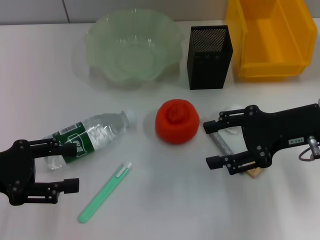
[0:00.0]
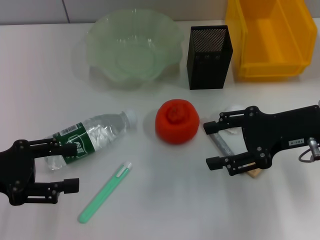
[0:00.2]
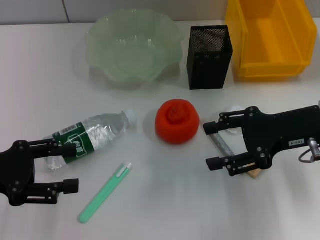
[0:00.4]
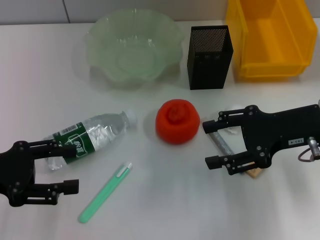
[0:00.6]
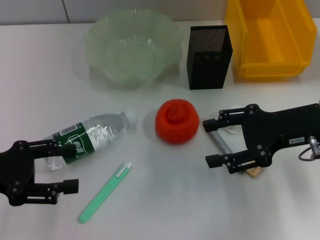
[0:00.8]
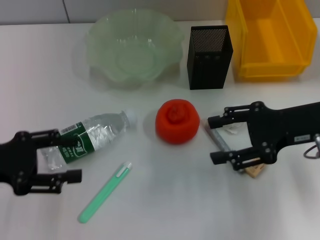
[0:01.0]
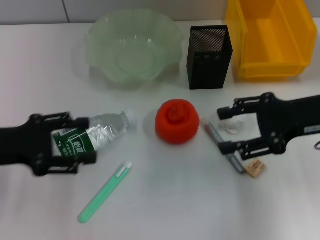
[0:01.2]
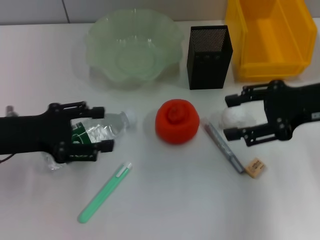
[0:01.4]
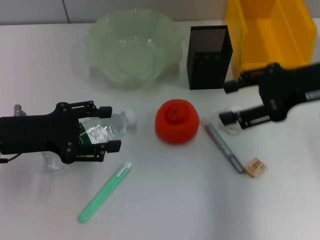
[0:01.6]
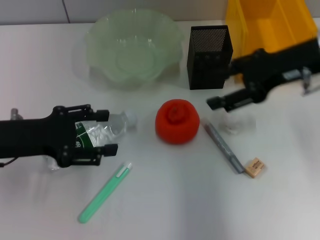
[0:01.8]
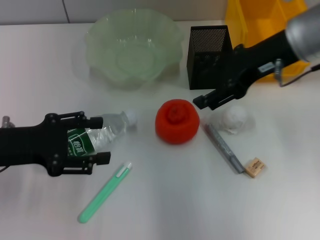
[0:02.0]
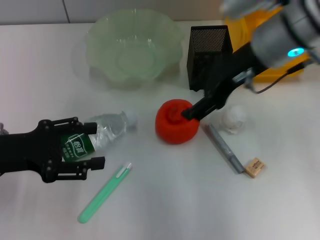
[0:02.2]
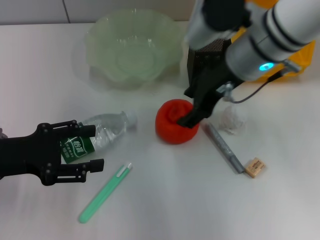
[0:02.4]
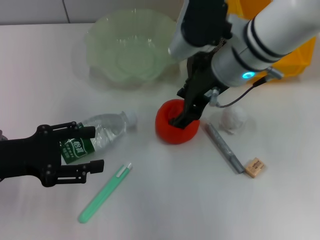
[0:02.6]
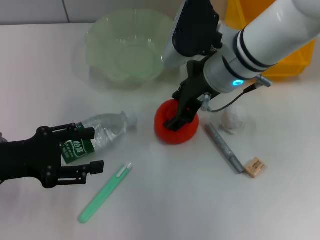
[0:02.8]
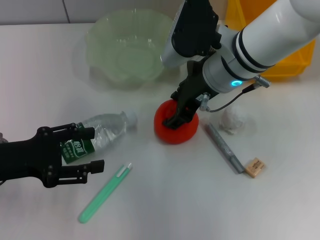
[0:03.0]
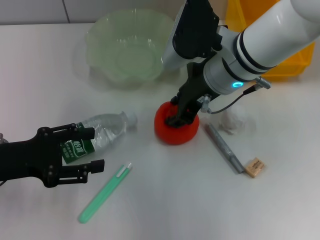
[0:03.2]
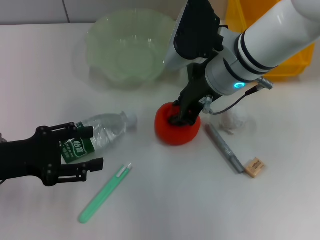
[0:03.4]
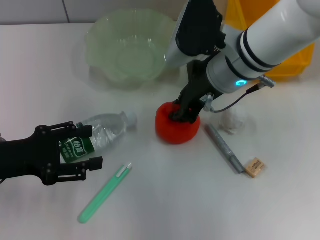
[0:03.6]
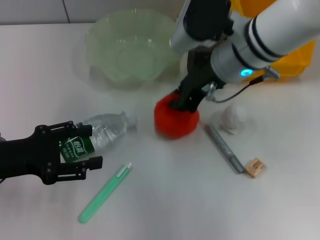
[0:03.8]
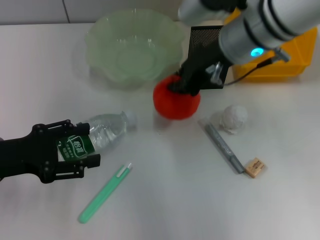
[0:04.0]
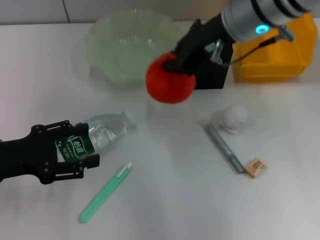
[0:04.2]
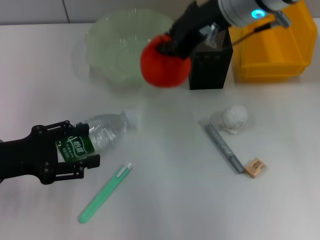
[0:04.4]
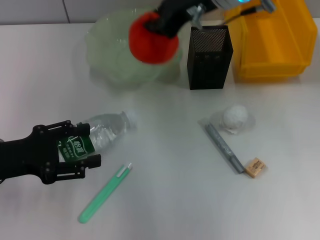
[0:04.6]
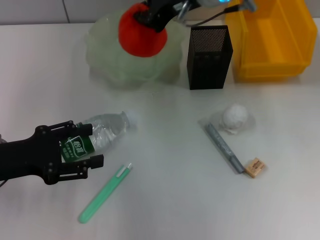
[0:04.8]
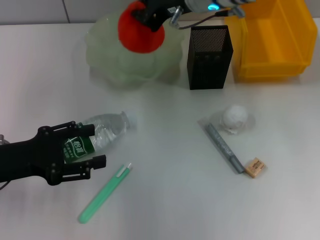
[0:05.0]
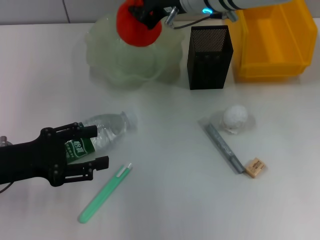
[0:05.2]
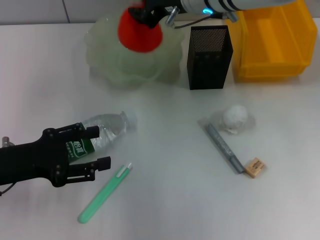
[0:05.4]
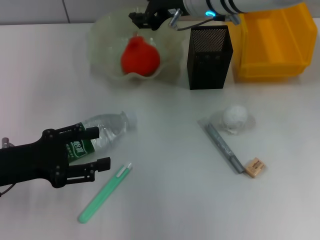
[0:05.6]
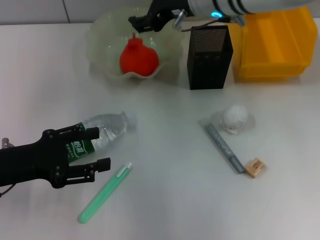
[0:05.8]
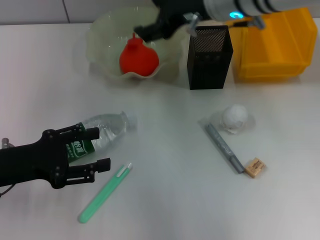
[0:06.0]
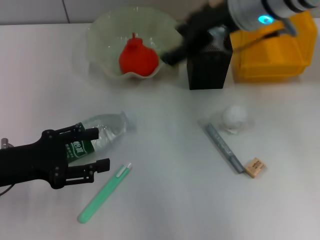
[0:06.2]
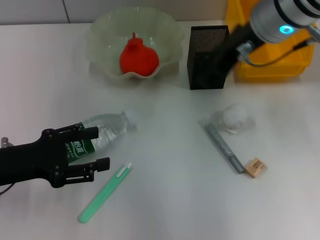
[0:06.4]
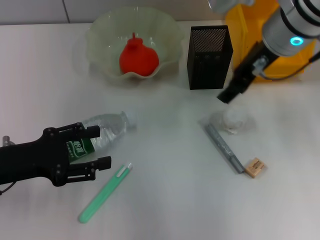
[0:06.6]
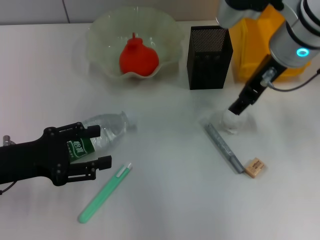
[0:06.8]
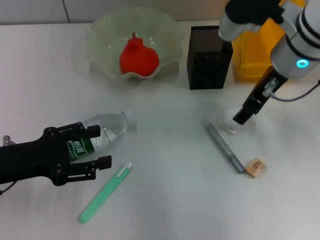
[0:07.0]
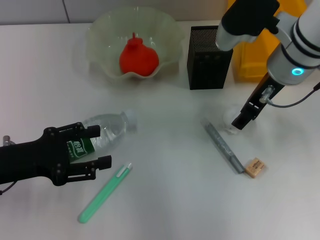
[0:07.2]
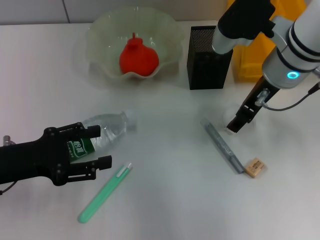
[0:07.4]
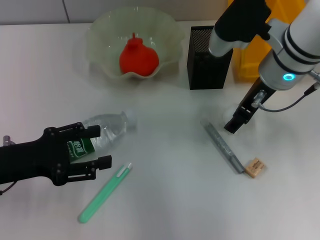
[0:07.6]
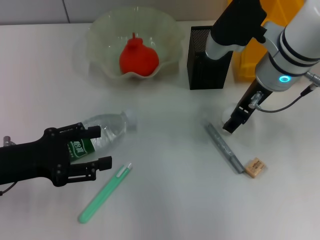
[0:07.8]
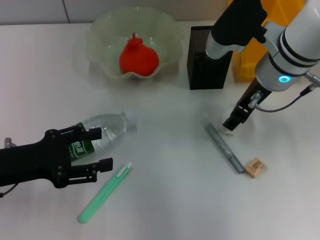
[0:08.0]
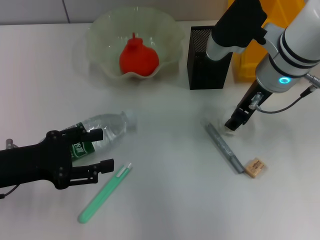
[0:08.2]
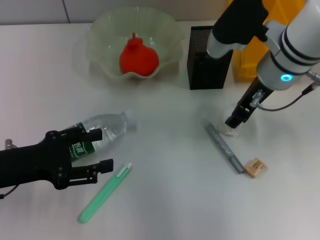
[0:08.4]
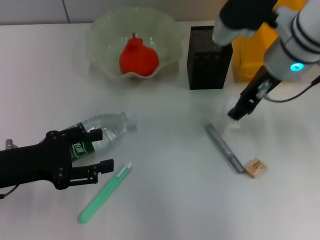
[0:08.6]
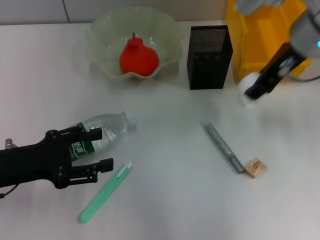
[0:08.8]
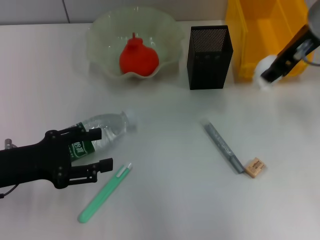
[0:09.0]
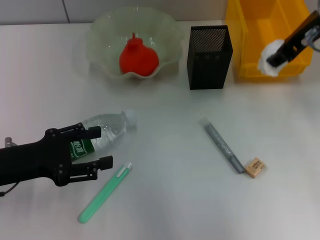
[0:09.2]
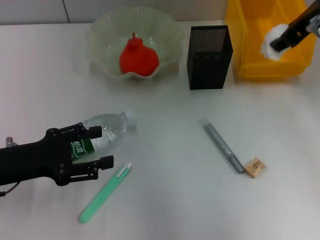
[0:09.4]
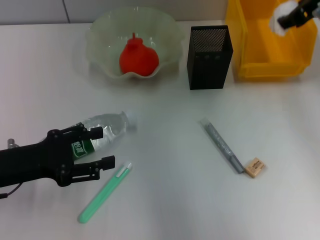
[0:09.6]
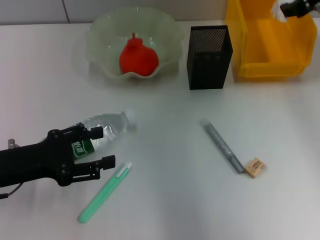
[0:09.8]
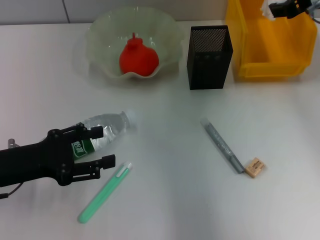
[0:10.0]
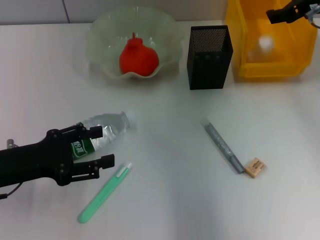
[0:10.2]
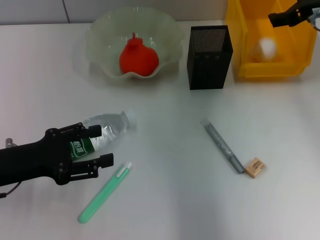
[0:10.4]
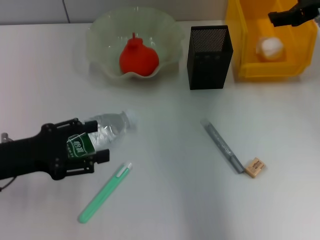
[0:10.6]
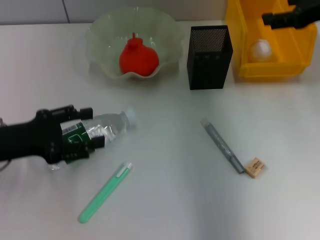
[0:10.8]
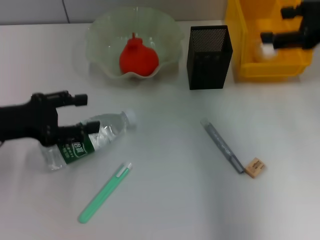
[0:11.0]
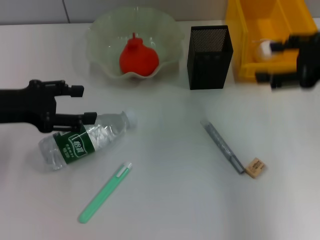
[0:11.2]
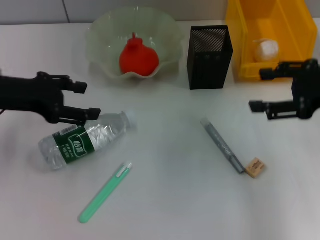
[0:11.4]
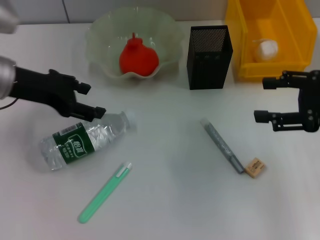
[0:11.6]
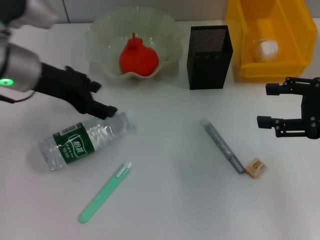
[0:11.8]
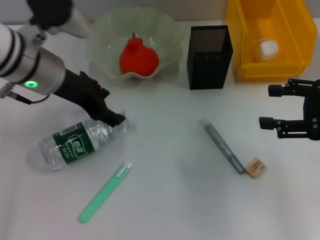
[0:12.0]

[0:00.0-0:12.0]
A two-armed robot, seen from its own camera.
Step, 0:00.0 to 0:03.2: Grab the orange with the right hand.
Step, 0:03.6 to 0:05.8: Place the orange into the fruit bowl with the right hand.
Step, 0:06.0 to 0:08.2: Grab the paper ball with the right hand.
Step, 0:08.4 to 0:10.8: Place the paper ball into the trash can with the right hand.
0:00.0 to 0:01.6: The right gripper goes about 5 cm upward. Meanwhile the left gripper travels to the right by about 5 cm.
0:01.6 to 0:03.0: The right gripper travels to the left by roughly 15 cm.
0:03.0 to 0:04.4: The right gripper goes roughly 10 cm upward, and closes up.
0:04.4 to 0:06.0: The right gripper opens its fingers.
0:06.0 to 0:07.6: The right gripper heads downward and to the right, covering about 10 cm.
0:07.6 to 0:09.0: The right gripper shifts some 10 cm upward.
0:09.0 to 0:10.4: The right gripper shifts some 5 cm to the right, and opens its fingers.
0:10.4 to 0:12.0: The left gripper travels forward, to the right and upward by some 20 cm, while the right gripper moves backward and to the right, approximately 15 cm.

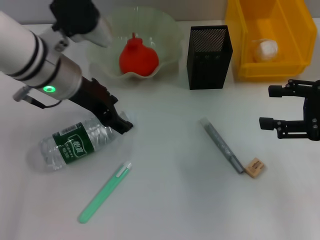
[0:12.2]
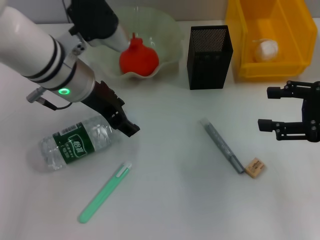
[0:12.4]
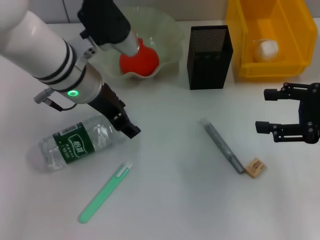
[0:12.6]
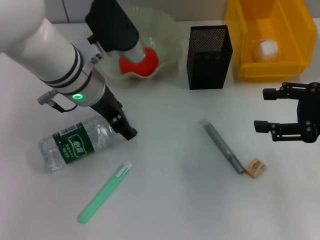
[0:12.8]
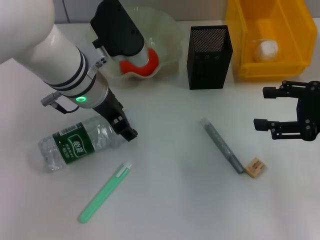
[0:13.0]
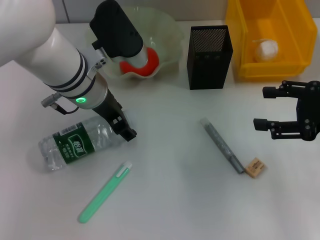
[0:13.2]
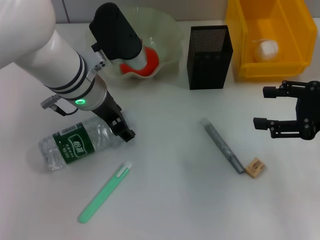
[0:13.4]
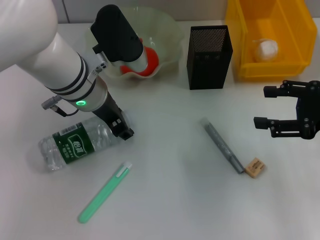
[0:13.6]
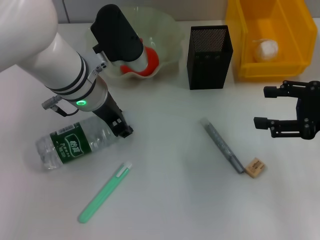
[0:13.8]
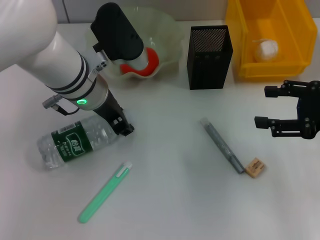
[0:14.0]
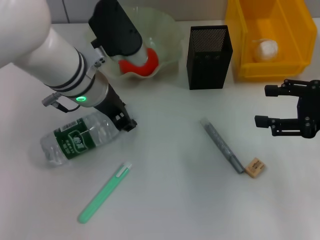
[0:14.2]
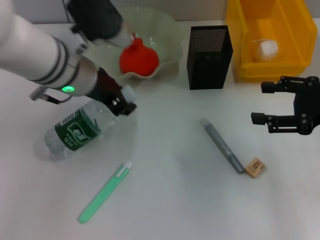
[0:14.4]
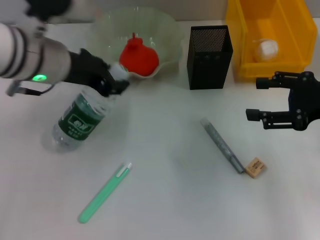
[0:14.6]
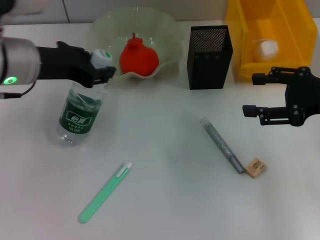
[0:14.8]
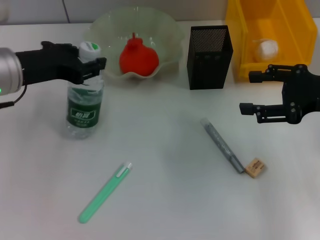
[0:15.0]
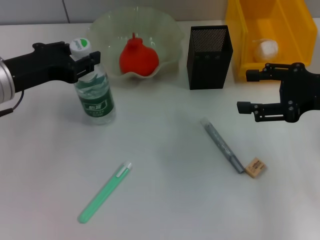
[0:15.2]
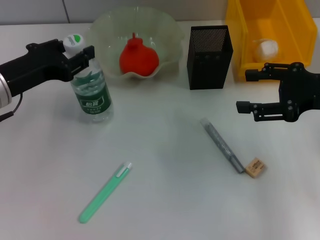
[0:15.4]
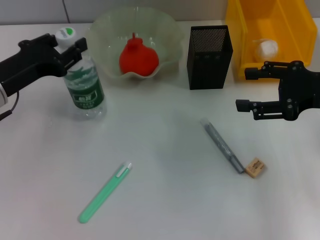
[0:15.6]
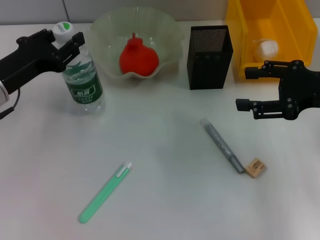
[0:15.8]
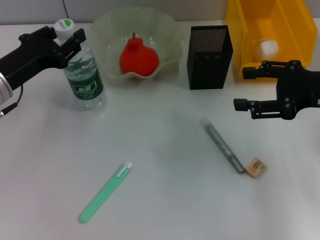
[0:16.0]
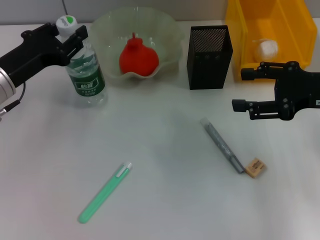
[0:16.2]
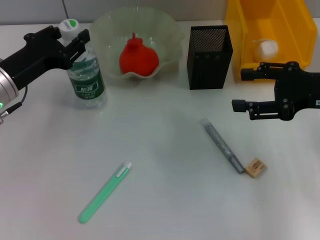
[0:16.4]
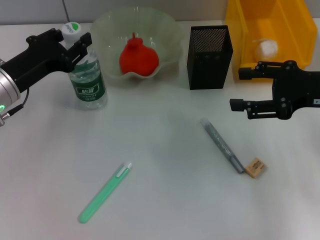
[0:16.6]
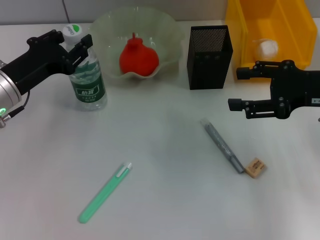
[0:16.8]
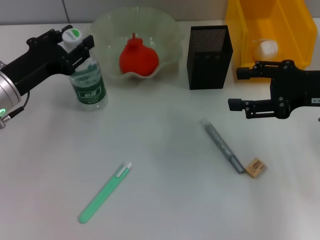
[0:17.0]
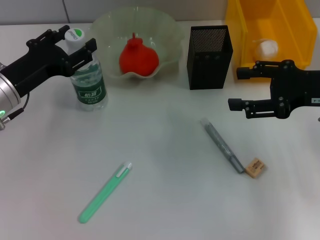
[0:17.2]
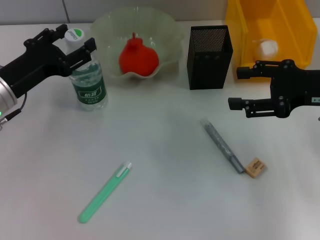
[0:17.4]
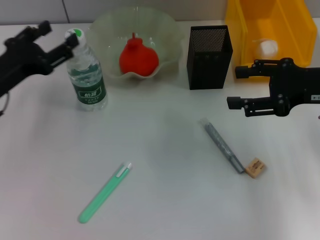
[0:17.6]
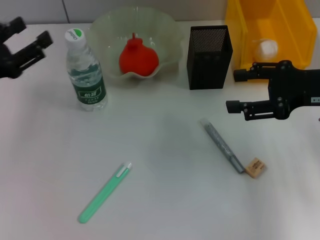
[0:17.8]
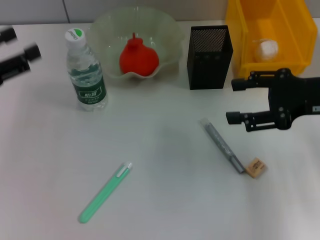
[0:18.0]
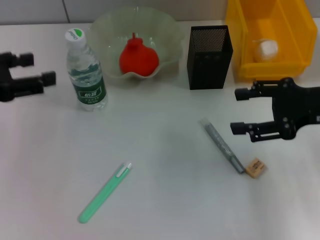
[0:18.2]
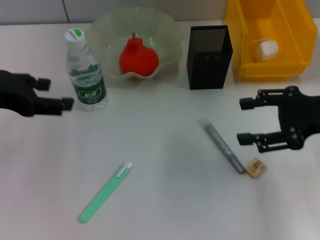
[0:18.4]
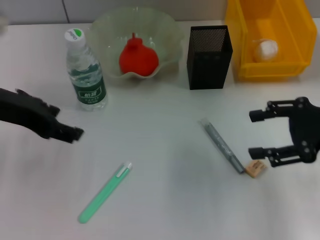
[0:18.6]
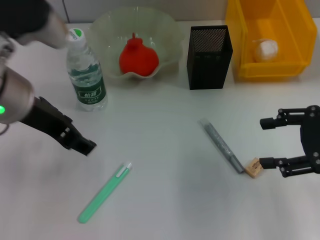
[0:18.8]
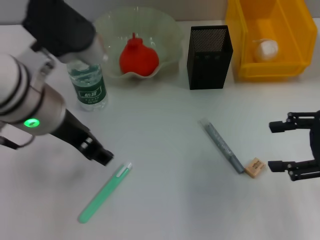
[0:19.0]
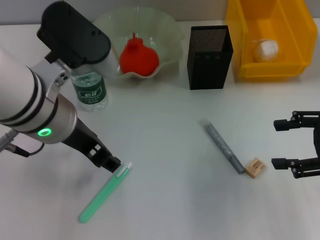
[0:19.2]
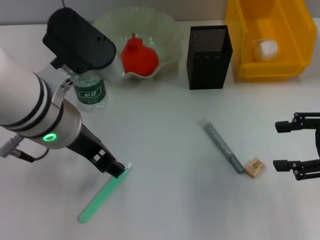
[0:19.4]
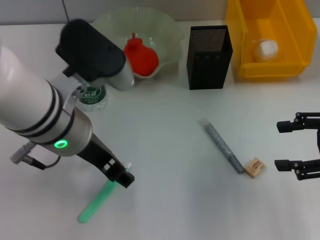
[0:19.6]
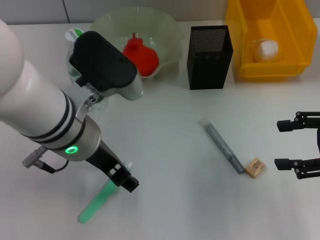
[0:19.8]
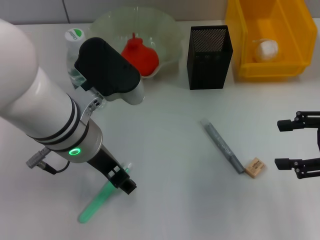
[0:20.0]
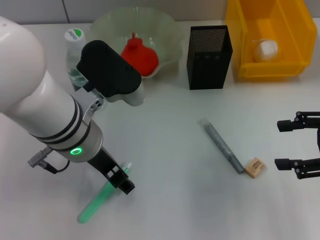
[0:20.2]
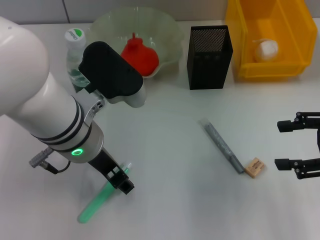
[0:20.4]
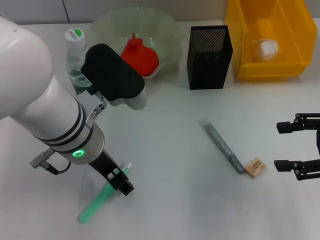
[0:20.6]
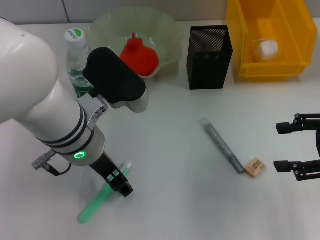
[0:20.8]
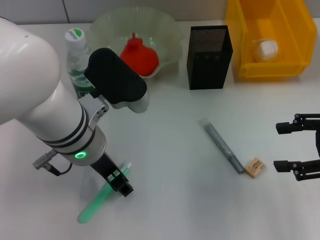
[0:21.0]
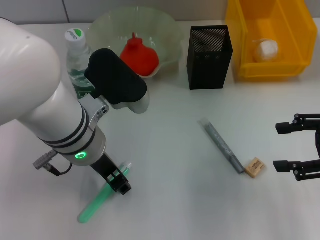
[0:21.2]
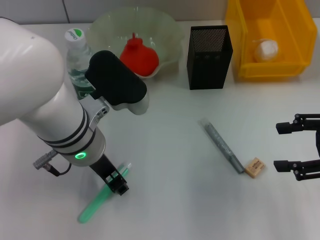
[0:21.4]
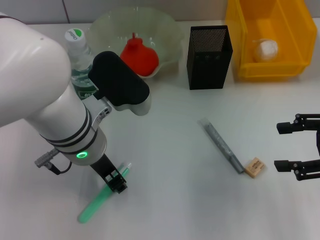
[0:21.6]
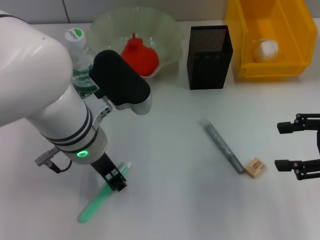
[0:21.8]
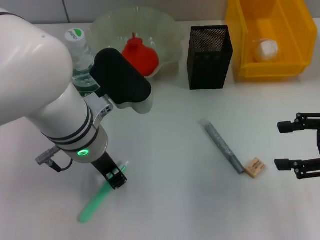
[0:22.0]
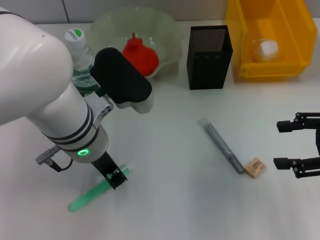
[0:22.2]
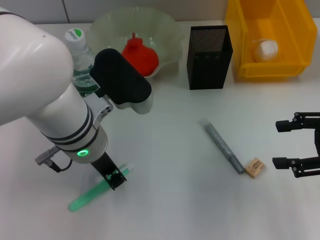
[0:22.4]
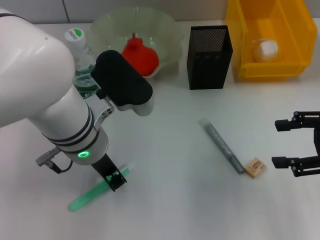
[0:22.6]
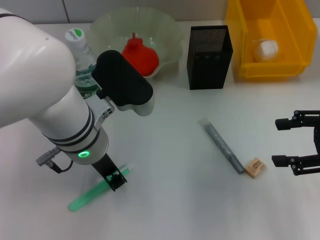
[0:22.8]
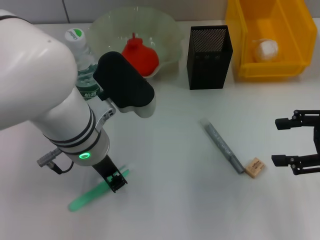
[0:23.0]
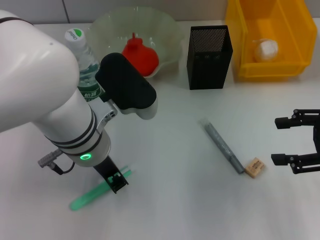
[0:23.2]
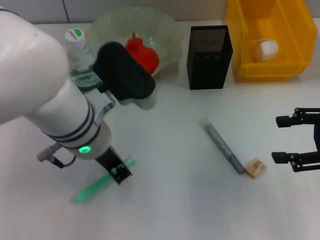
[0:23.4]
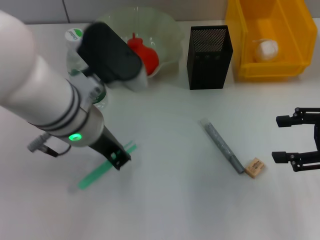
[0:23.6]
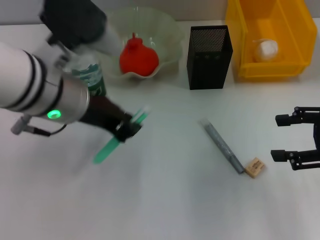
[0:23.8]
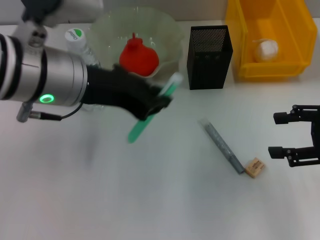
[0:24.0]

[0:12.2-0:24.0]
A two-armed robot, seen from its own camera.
Step, 0:12.2 to 0:13.6: Grab the water bottle with the left hand.
Step, 0:14.0 to 0:17.6: Place the water bottle on the table with the left hand.
Step, 0:17.8 to 0:23.0: Grab the blue utility knife with the left hand.
0:12.2 to 0:13.6: The grippers stay close to where they were, moving slightly.
0:13.6 to 0:15.2: The left gripper goes about 15 cm to the left and backward, and closes.
0:15.2 to 0:16.6: The left gripper changes place by roughly 5 cm.
0:16.6 to 0:18.2: The left gripper goes about 10 cm upward, to the left and backward, and opens its fingers.
0:18.2 to 0:19.6: The left gripper is displaced to the right by roughly 20 cm, while the right gripper moves approximately 5 cm.
0:19.6 to 0:21.0: There are only small adjustments of the grippers.
0:21.0 to 0:22.6: The left gripper closes up.
0:22.6 to 0:24.0: The left gripper travels upward by approximately 10 cm.
